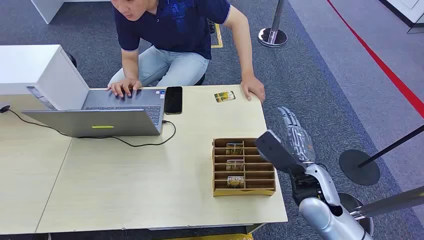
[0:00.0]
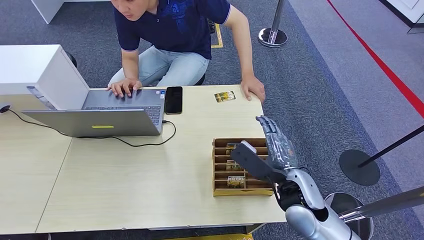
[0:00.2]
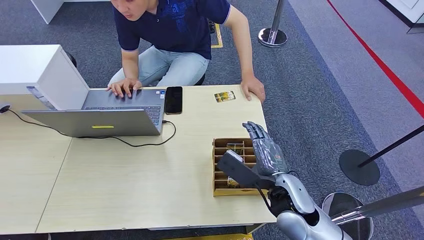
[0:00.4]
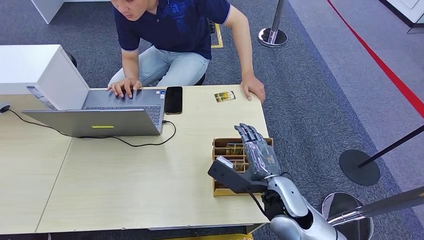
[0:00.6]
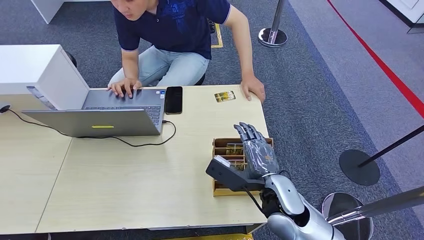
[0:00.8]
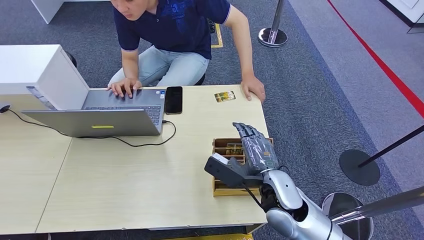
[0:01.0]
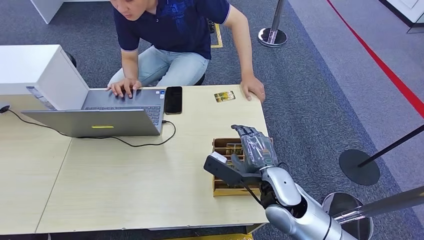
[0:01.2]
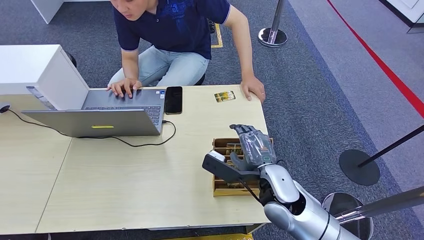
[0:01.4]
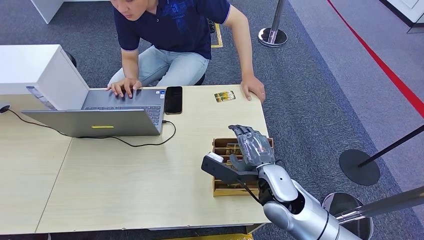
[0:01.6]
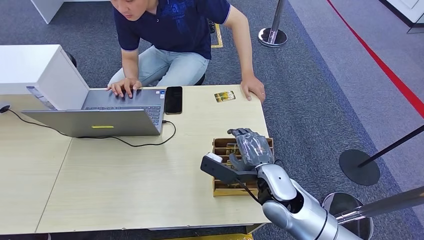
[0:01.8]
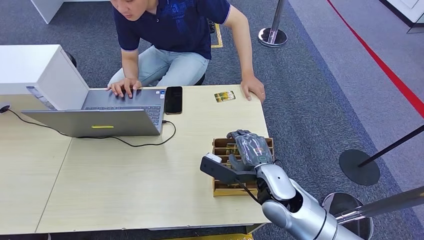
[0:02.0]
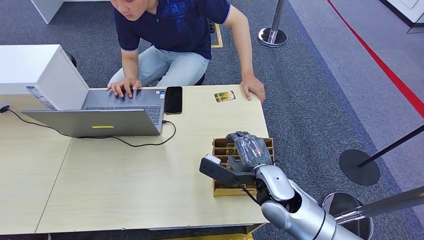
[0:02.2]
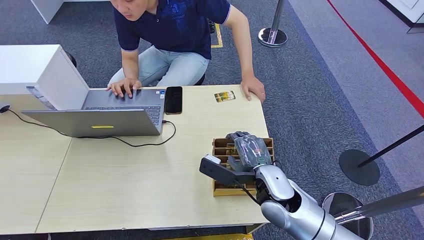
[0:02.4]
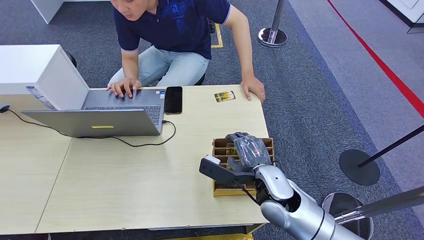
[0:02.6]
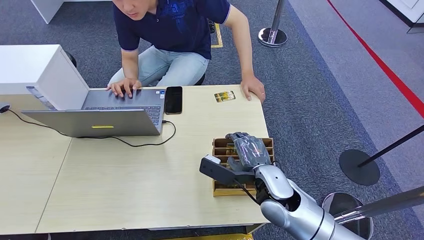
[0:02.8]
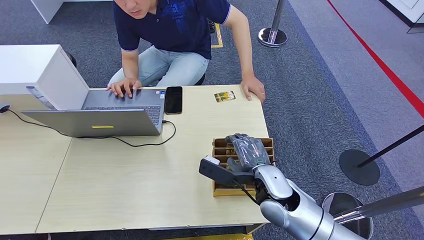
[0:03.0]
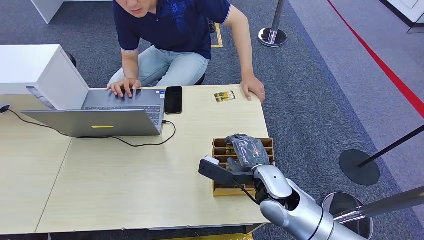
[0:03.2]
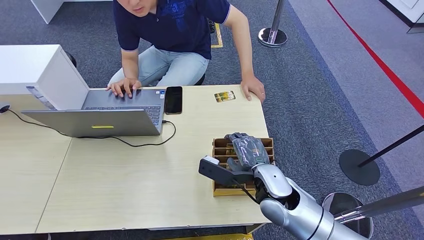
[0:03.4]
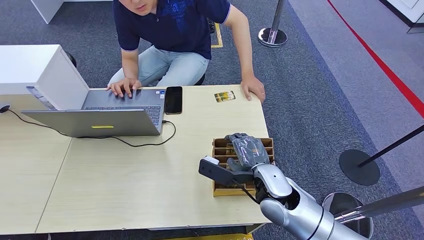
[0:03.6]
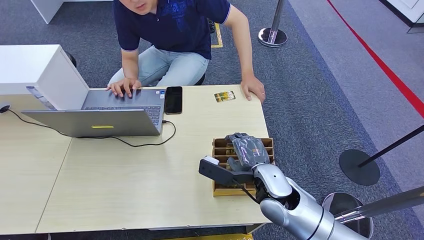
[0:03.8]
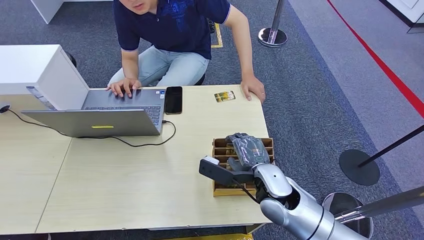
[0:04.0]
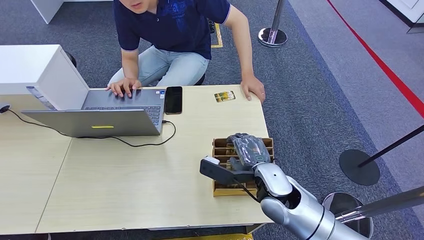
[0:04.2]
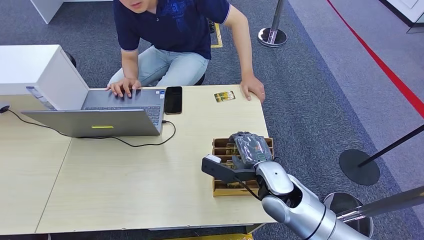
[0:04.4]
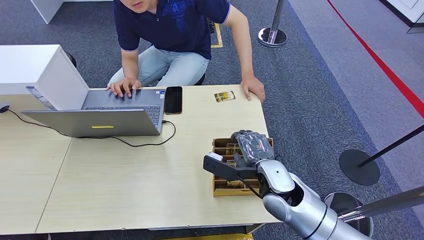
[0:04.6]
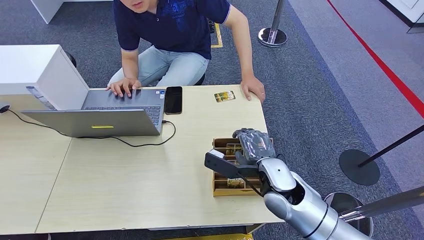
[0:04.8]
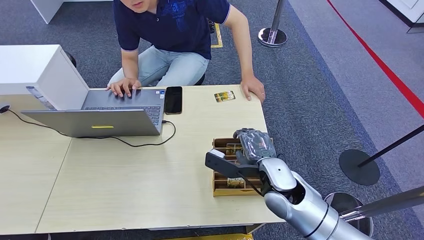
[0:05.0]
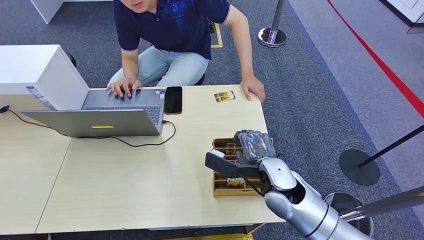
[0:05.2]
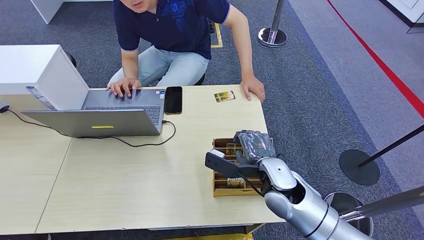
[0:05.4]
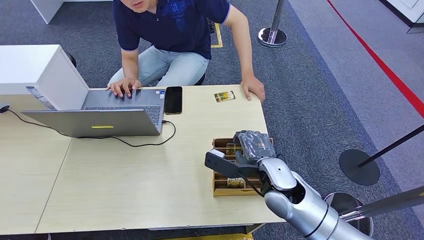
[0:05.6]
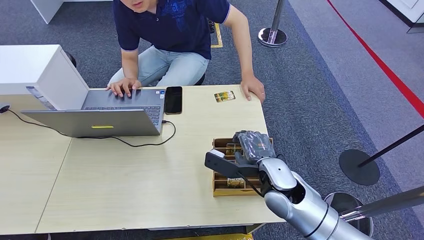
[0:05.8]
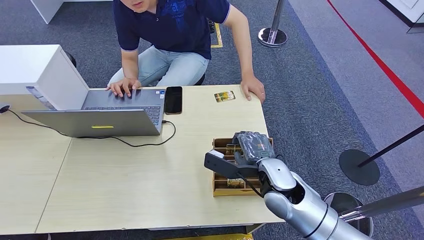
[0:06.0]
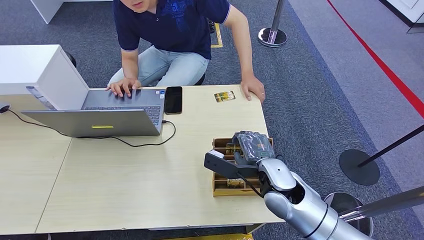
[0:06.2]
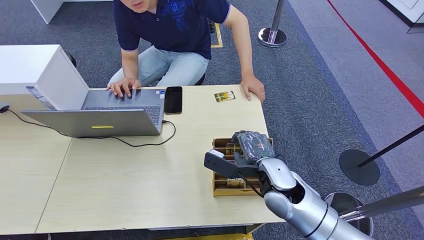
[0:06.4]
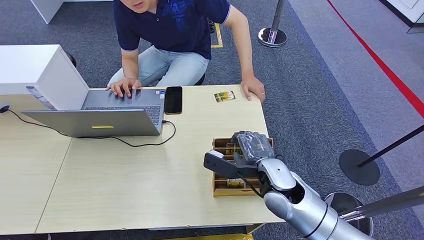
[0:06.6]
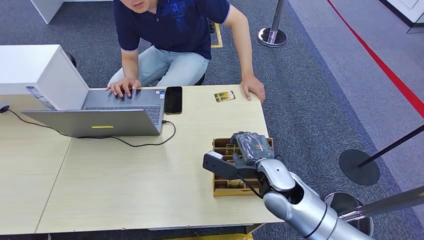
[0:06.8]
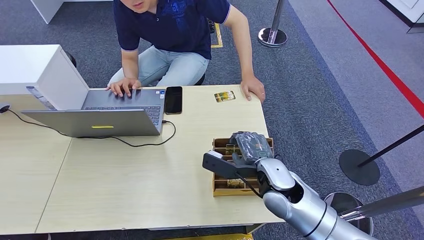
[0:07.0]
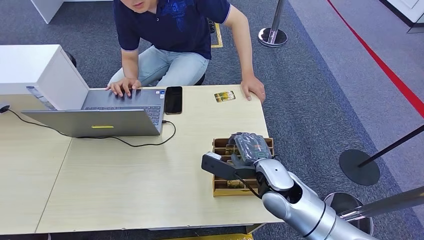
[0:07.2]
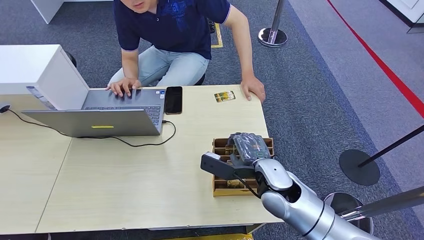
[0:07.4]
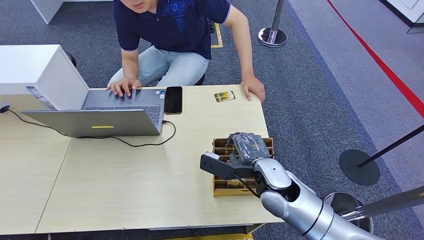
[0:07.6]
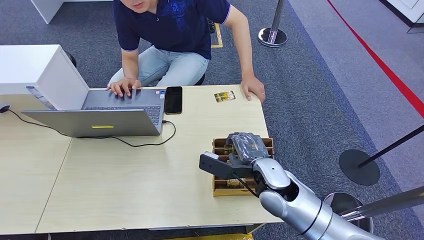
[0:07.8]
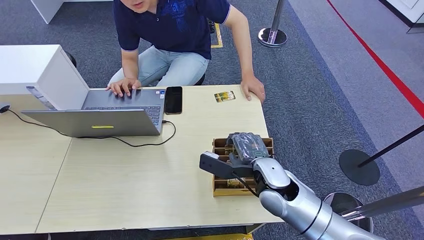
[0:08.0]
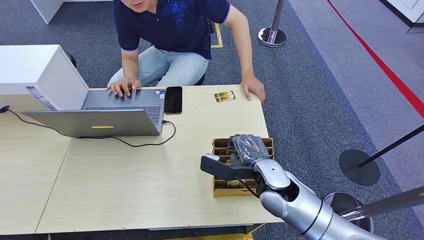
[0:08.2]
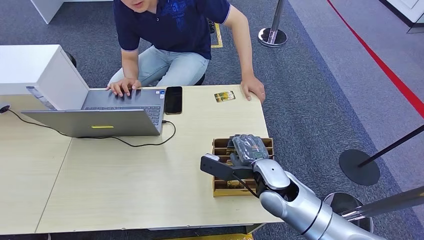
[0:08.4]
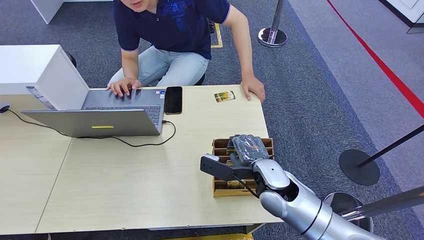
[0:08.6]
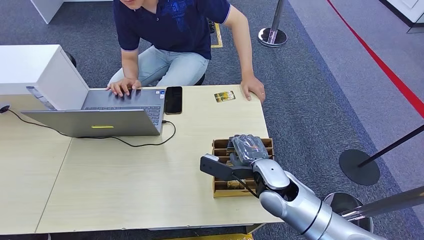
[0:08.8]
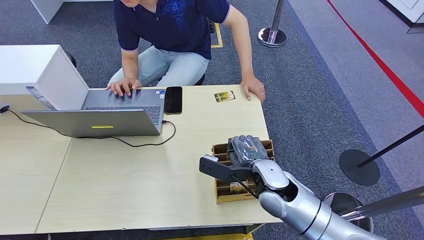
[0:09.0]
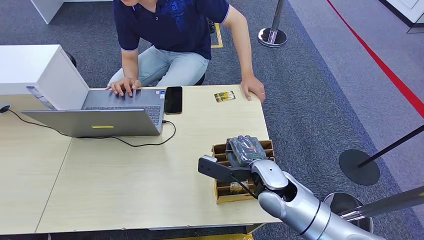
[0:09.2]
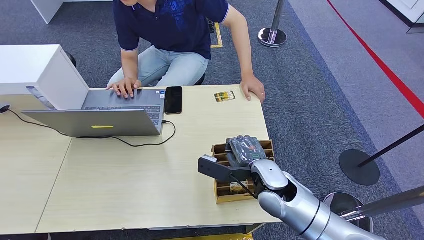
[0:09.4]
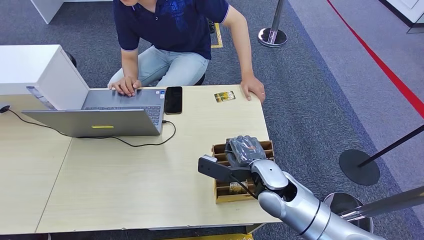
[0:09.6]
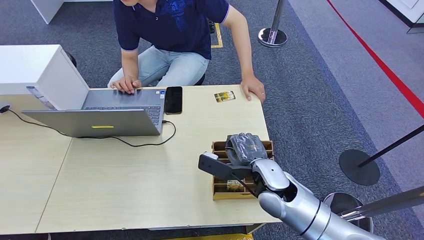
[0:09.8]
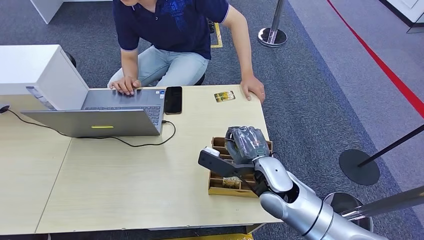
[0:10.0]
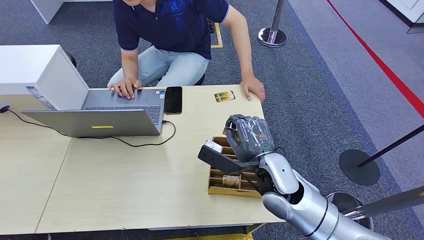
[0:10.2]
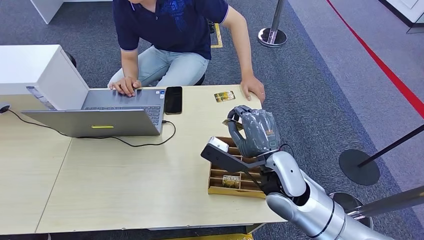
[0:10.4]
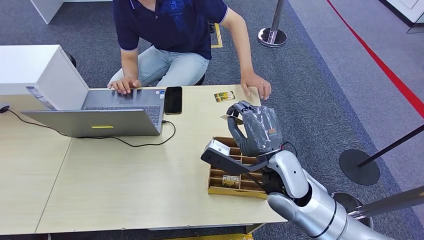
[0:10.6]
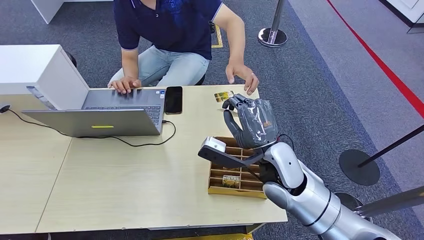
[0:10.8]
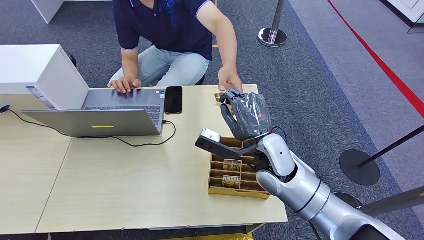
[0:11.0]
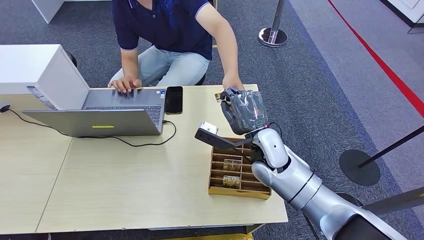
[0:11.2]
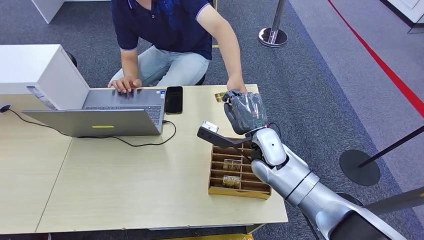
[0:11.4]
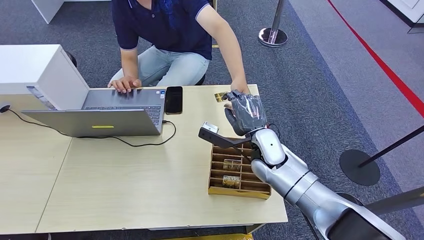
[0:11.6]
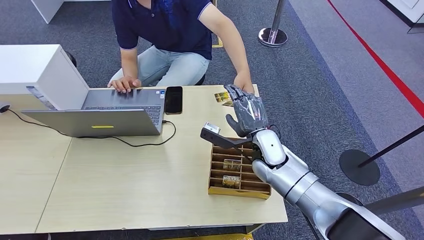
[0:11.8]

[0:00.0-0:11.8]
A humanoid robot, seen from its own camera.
Step, 0:00.0 to 0:10.8: Pick up the room card from the card holder.
Step, 0:11.0 to 0:11.8: Hand the room card to the target.
0:01.4 to 0:04.4: There are only small adjustments of the hands.
0:04.4 to 0:06.0: Both hands stay put.
0:06.0 to 0:07.4: The hands make only small movements.
0:07.4 to 0:08.8: Both hands stay about where they are.
0:08.8 to 0:10.4: The right hand heads upward, covering approximately 10 cm.
0:10.4 to 0:11.8: The right hand is displaced forward and downward by some 15 cm.
